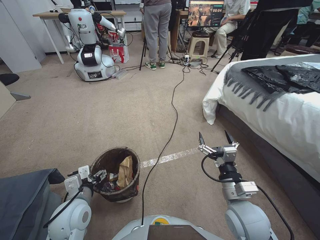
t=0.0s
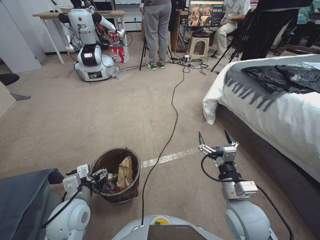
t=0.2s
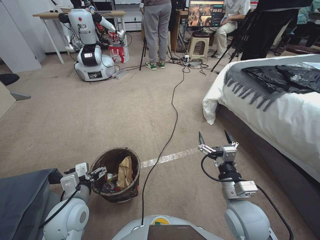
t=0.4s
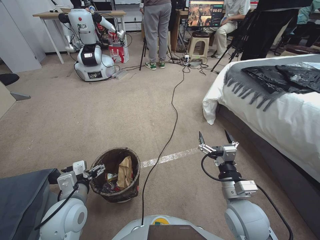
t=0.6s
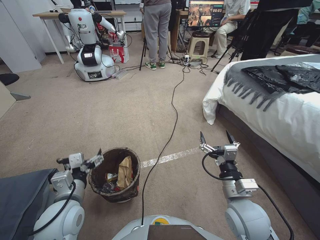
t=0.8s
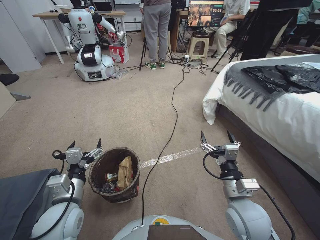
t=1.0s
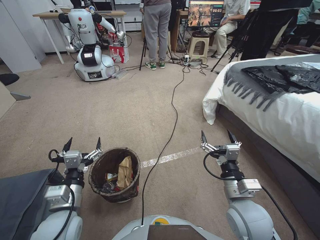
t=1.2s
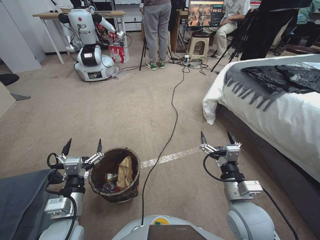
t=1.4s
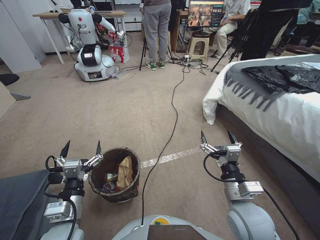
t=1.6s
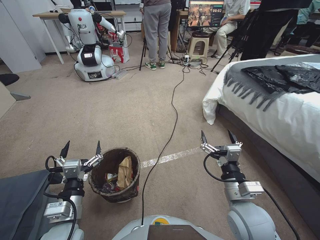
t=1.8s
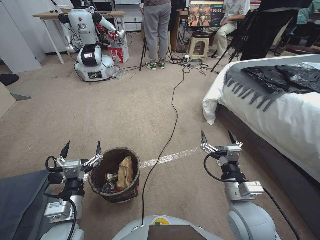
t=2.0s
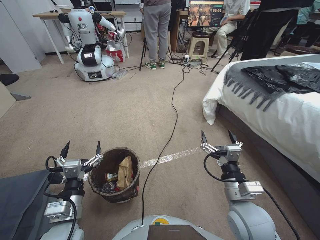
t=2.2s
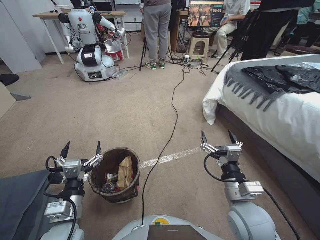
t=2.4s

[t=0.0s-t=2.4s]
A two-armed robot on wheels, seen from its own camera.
Task of the whole recording: Pick up the trash bin, then pick up the garbage from the floor and place it into the trash bin.
t=1.2s to t=2.4s: The grippers make only small movements.

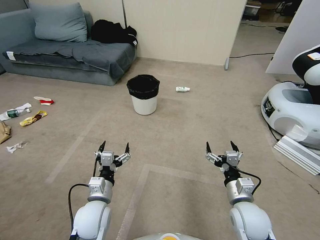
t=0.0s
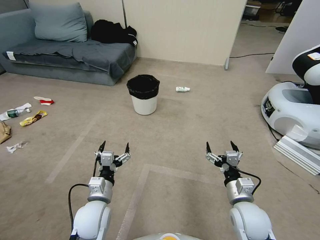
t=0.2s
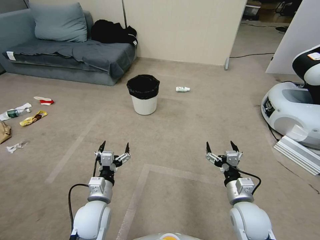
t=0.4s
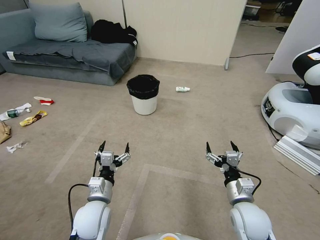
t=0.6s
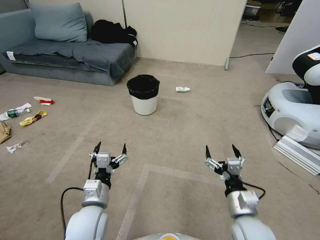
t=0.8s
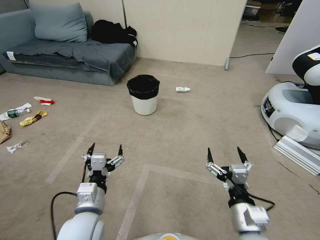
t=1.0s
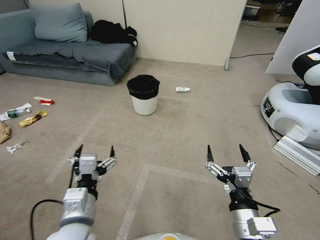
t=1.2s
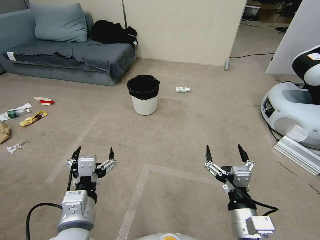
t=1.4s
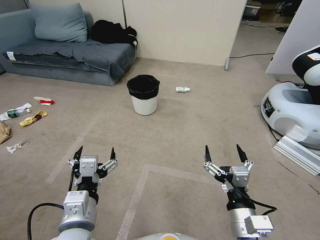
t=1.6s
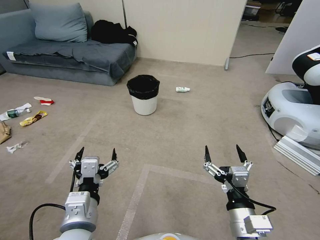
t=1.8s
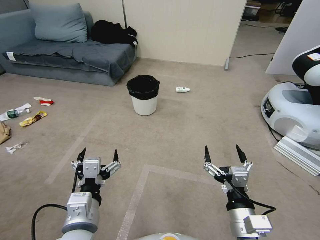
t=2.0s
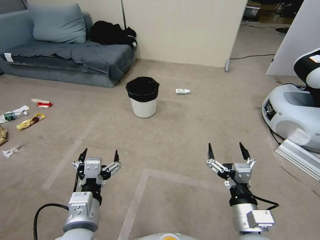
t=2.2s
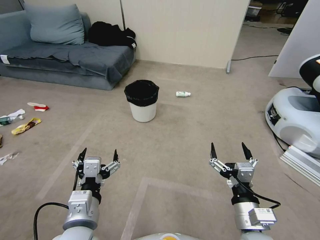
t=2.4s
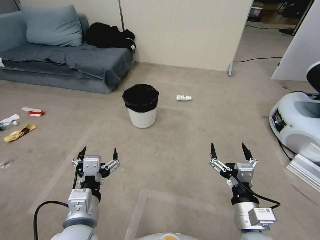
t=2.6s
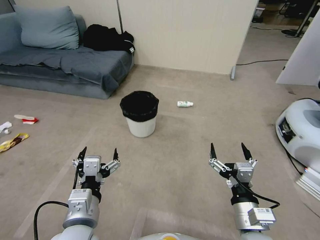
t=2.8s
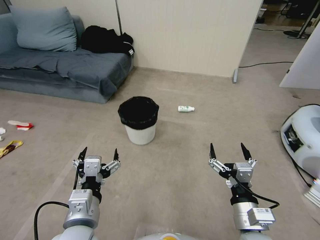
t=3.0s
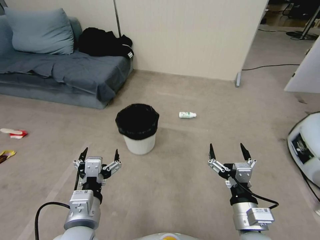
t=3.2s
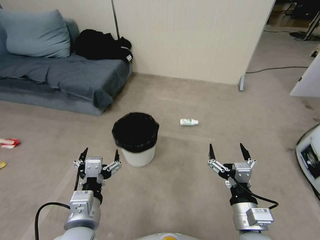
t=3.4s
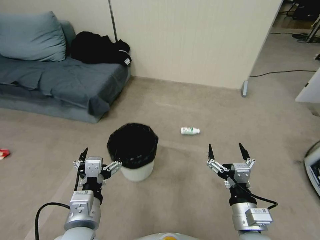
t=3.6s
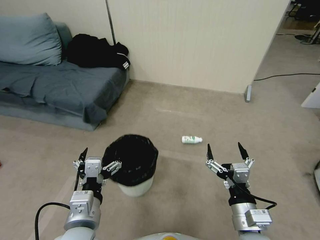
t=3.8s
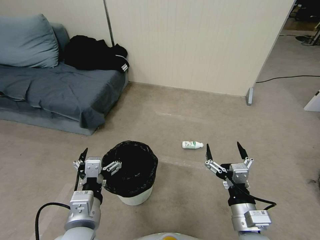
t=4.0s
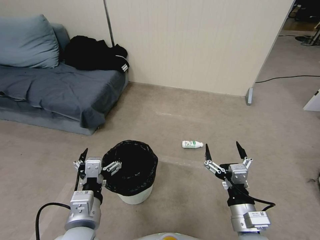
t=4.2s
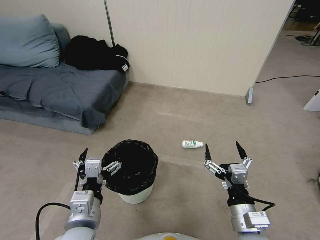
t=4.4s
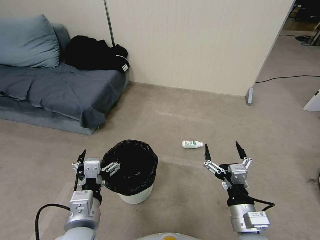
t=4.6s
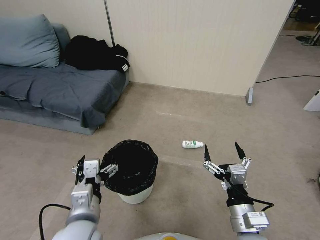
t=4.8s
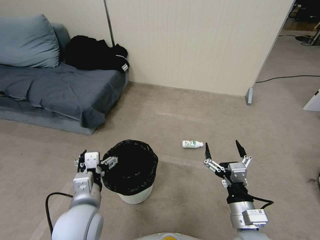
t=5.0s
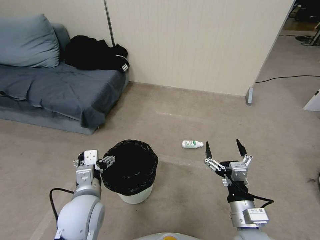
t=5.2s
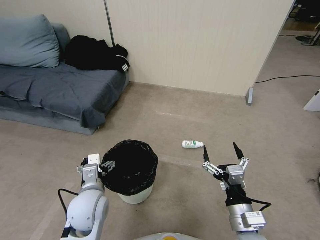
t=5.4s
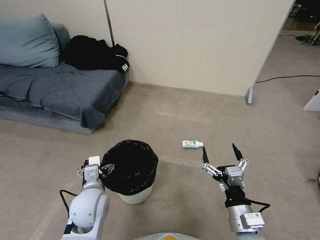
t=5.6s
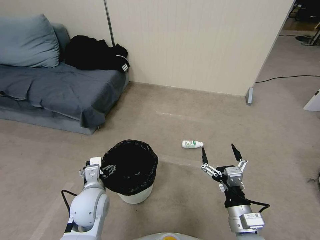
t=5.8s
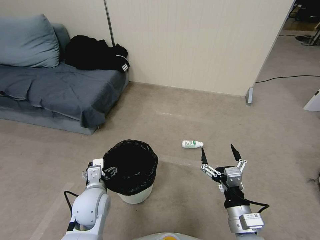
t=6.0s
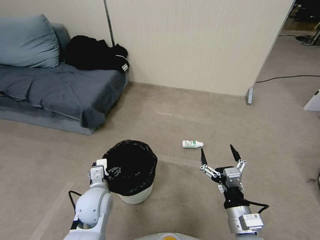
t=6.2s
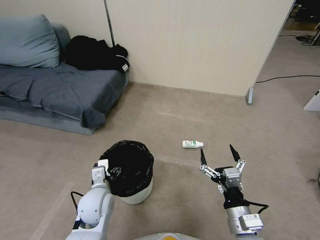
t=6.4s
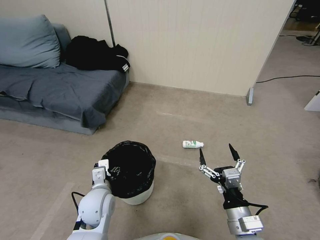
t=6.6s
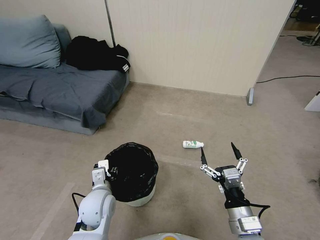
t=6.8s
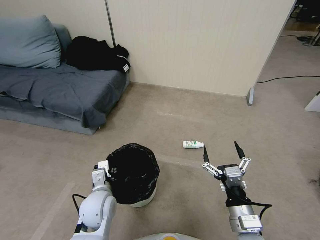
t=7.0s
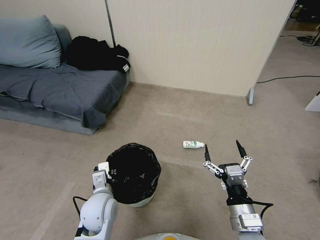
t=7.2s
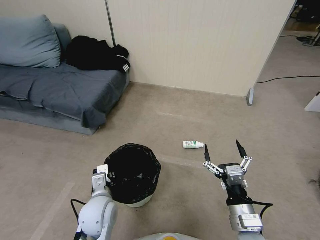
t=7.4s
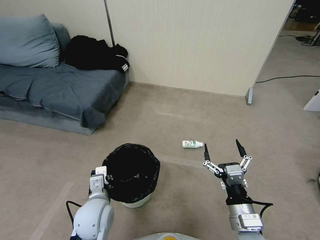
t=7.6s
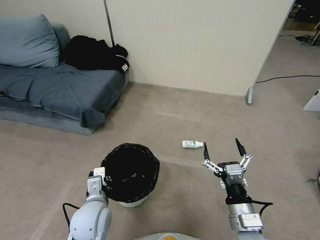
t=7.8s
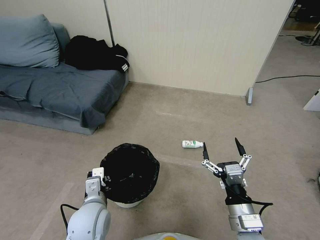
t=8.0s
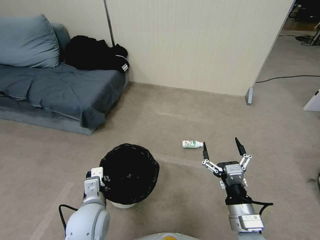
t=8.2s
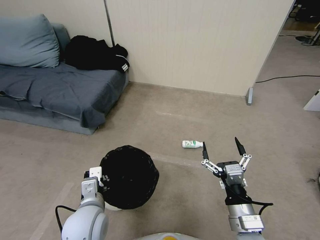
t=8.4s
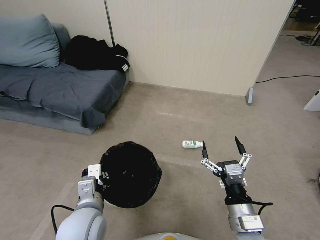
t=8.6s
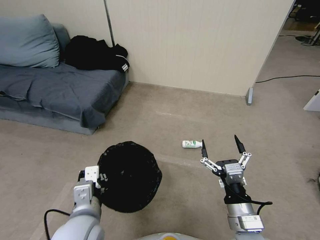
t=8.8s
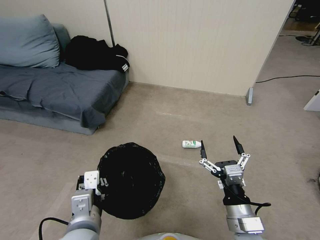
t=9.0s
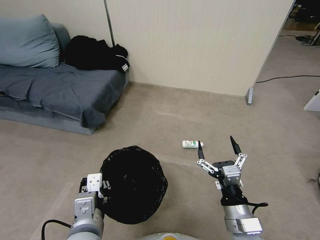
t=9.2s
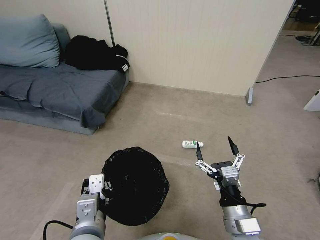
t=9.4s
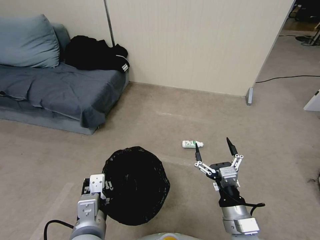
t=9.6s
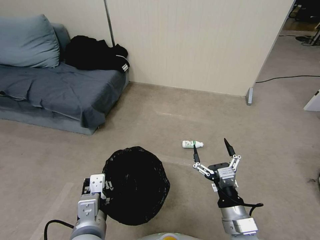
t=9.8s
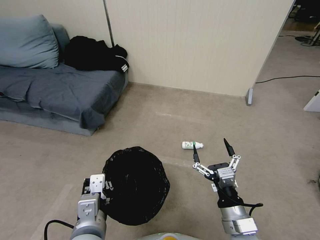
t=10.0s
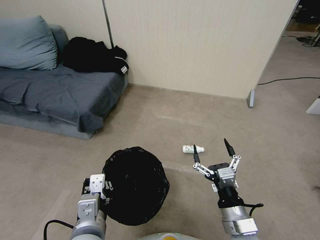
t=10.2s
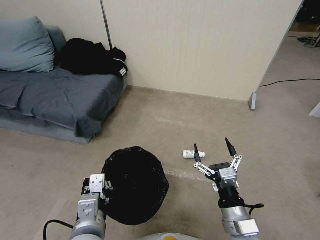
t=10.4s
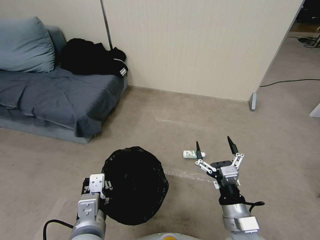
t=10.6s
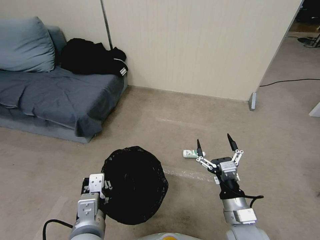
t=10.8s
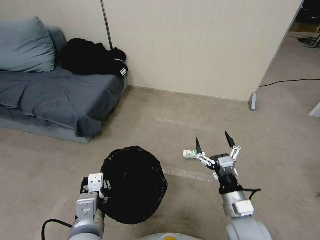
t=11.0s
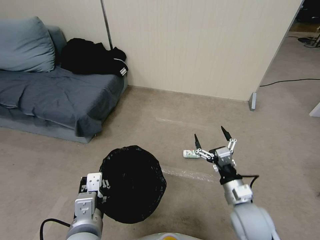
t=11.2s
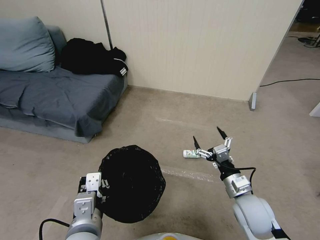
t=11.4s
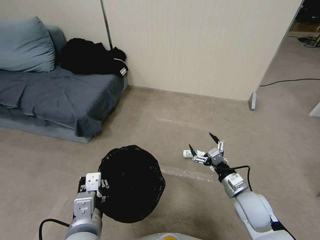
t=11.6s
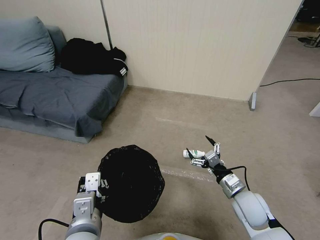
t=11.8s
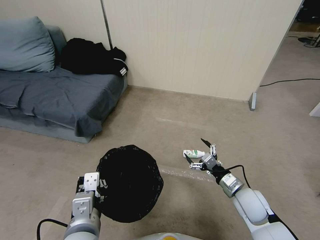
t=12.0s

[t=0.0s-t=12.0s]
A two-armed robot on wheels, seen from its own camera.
Task of the whole recording: Pick up the trash bin, then pick up the garbage from the floor and place it into the trash bin.
t=4.4s to t=6.0s: The left gripper moves forward and downward, roughly 15 cm.
t=6.0s to t=7.6s: The left gripper closes up.
t=7.6s to t=9.0s: The left gripper travels upward and backward by about 15 cm.
t=9.0s to t=10.4s: The grippers move only a little.
t=10.4s to t=12.0s: The right gripper travels forward, to the right and downward by approximately 15 cm.

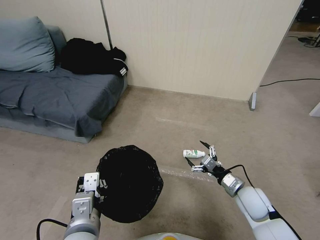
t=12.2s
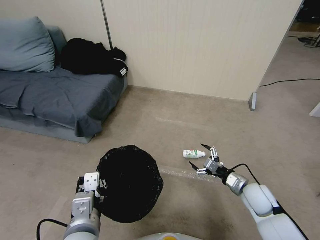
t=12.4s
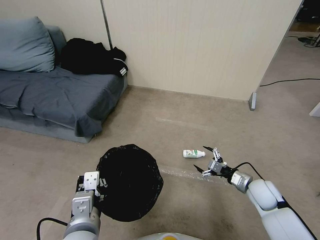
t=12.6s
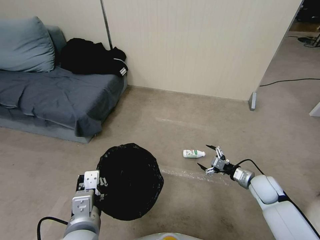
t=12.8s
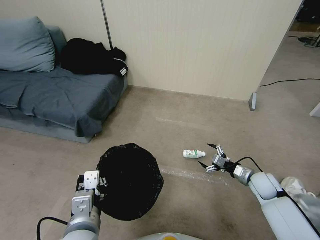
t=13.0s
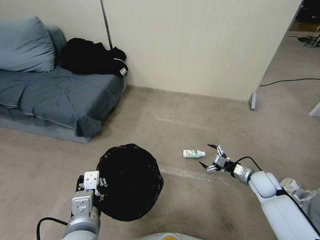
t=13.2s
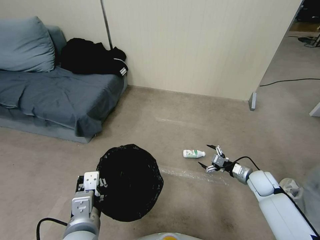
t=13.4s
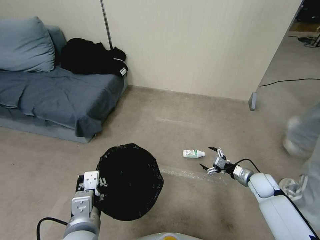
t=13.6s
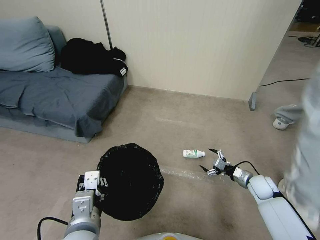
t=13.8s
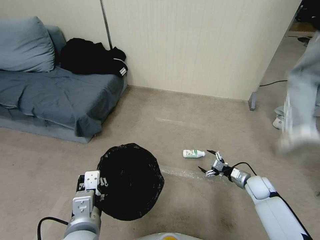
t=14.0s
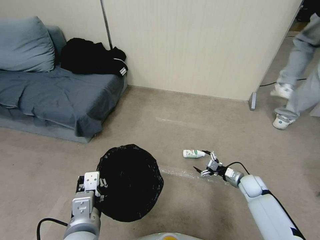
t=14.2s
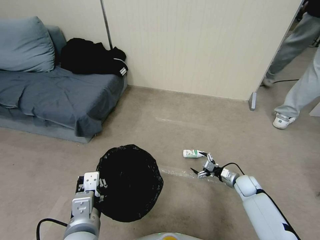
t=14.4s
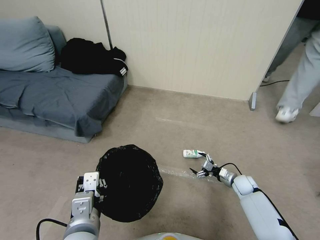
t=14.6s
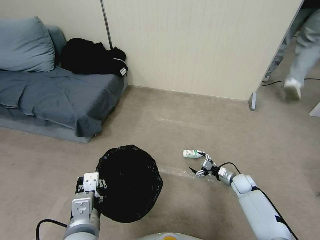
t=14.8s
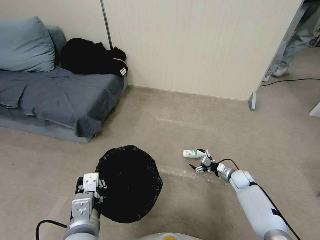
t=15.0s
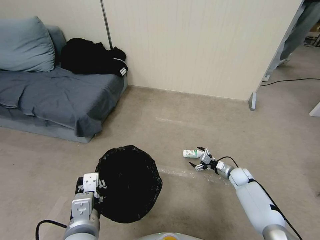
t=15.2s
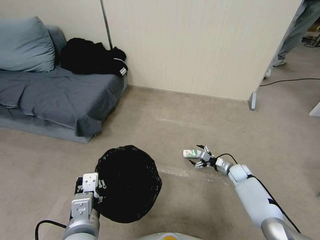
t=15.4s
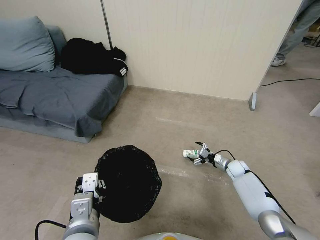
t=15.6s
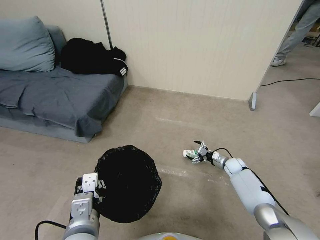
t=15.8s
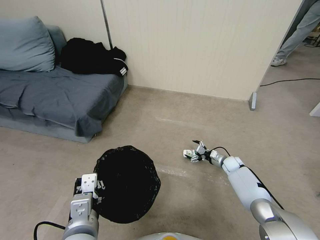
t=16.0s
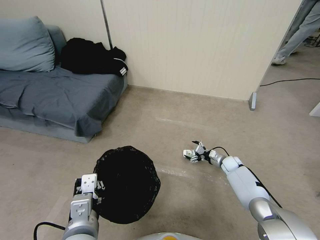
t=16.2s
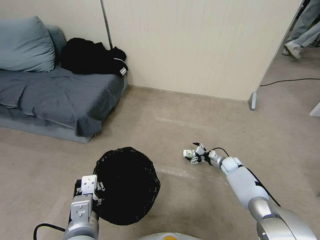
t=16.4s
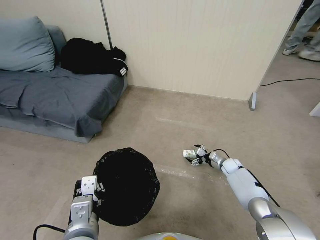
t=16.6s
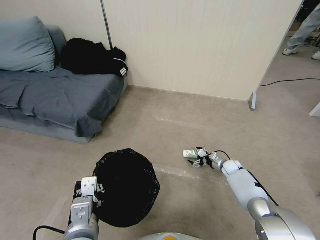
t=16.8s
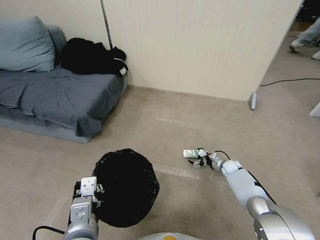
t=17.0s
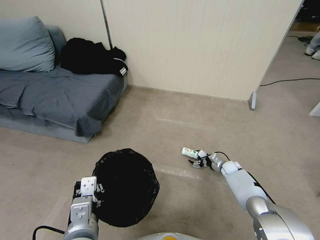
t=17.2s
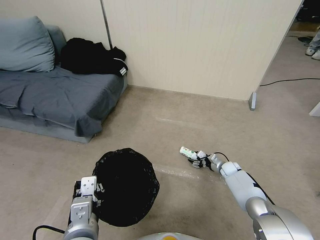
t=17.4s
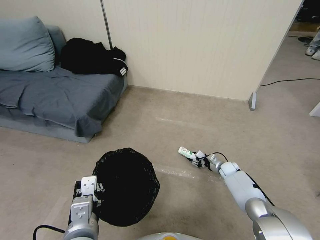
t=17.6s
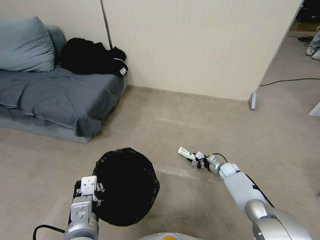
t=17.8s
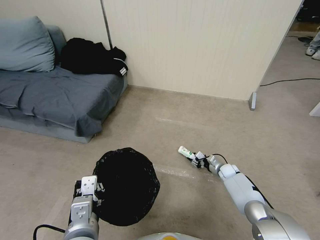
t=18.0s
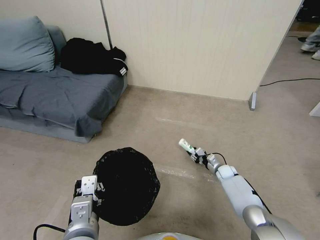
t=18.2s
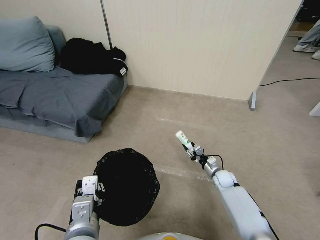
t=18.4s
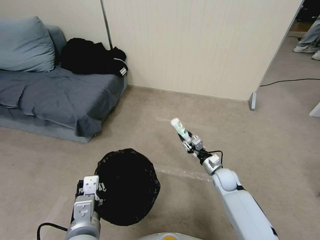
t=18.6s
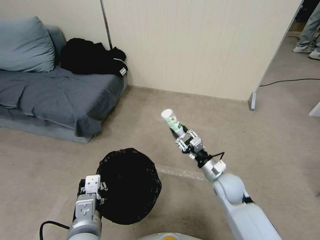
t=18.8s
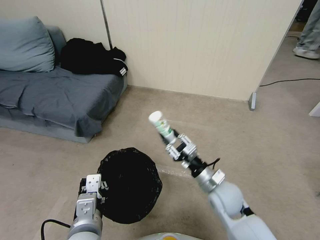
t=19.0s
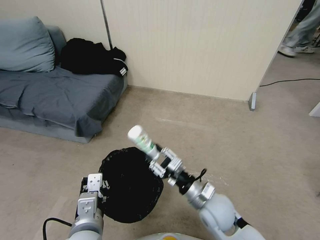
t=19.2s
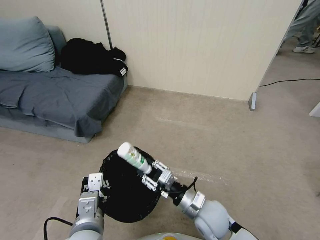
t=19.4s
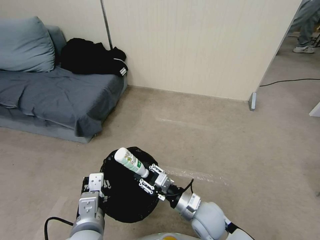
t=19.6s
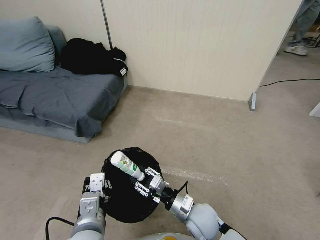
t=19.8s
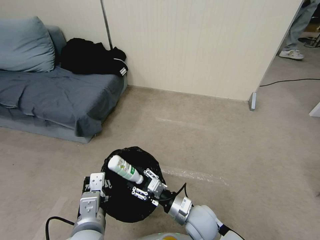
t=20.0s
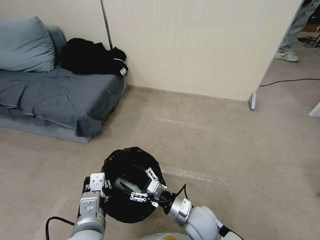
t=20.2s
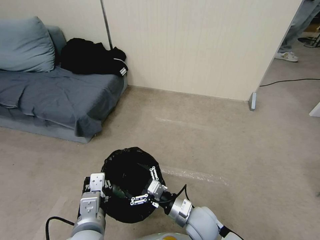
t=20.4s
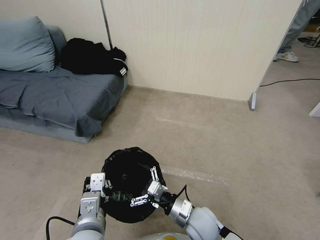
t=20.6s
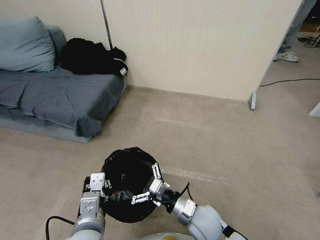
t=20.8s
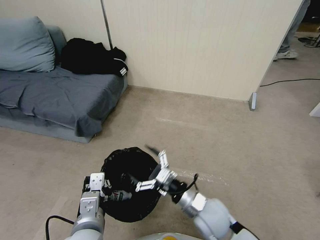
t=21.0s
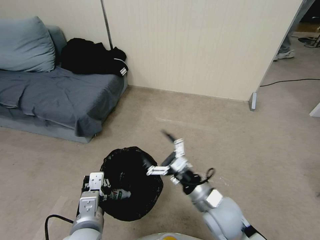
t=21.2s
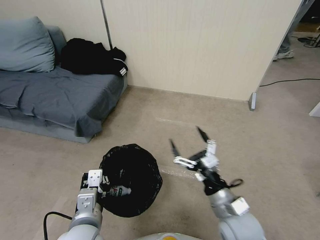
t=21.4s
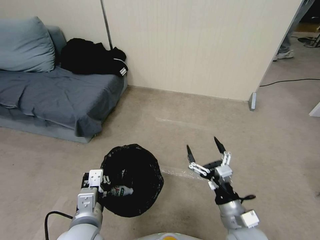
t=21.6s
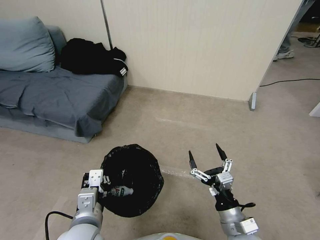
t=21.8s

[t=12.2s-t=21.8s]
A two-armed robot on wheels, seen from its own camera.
Task of the whole recording: Pick up the trash bin, then pick up the garbage from the floor and place it into the trash bin.
t=12.2s to t=13.8s: The right gripper moves to the right, forward and downward, about 15 cm.
t=13.8s to t=15.4s: The right gripper shifts roughly 10 cm forward and downward.
t=15.4s to t=17.0s: The grippers move only a little.
t=17.0s to t=18.6s: The right gripper goes some 15 cm upward, to the left and backward, and closes its fingers.
t=18.6s to t=20.2s: The right gripper moves backward and to the left, approximately 20 cm, and opens up.
t=20.2s to t=21.8s: The right gripper heads to the right and backward, covering approximately 10 cm.
